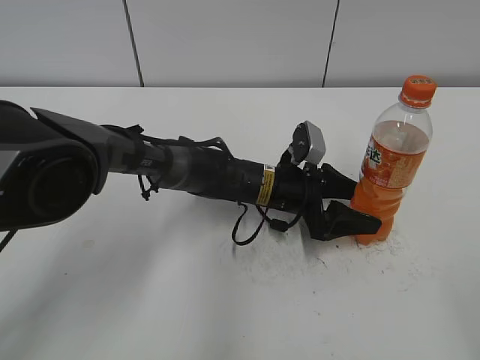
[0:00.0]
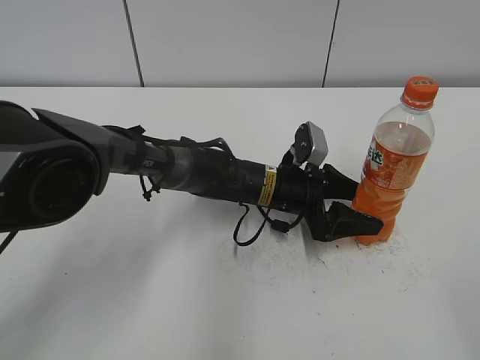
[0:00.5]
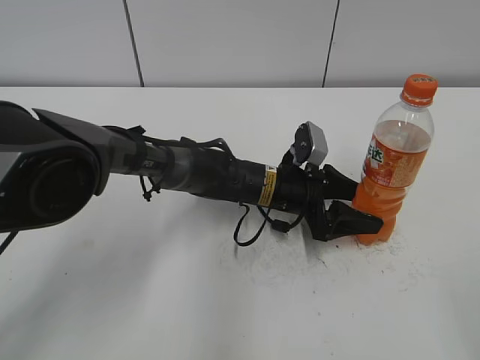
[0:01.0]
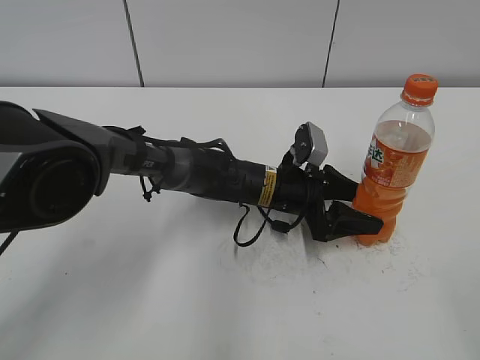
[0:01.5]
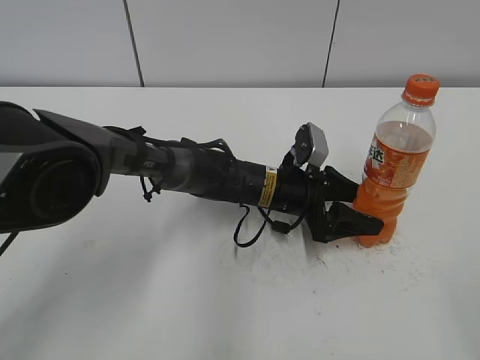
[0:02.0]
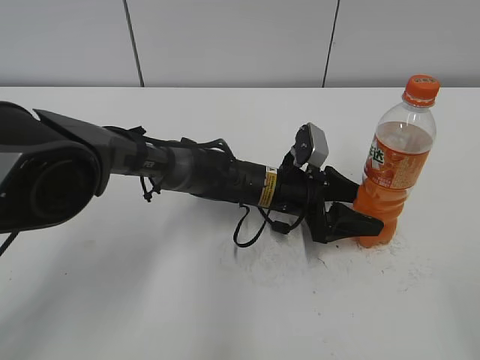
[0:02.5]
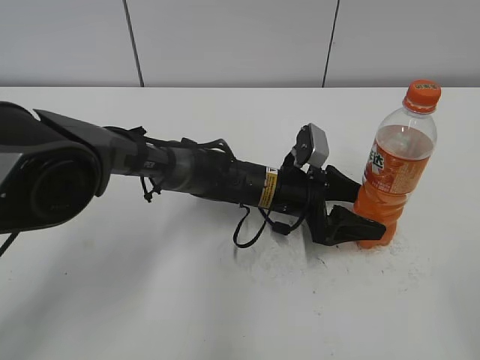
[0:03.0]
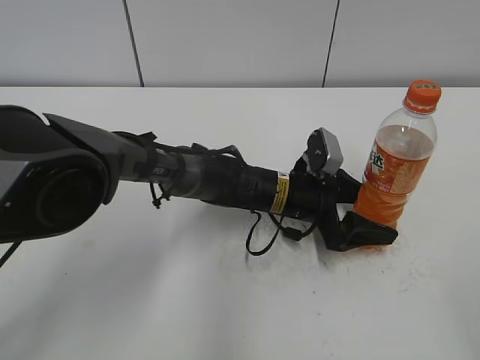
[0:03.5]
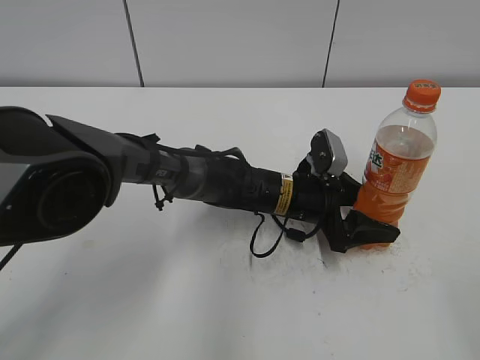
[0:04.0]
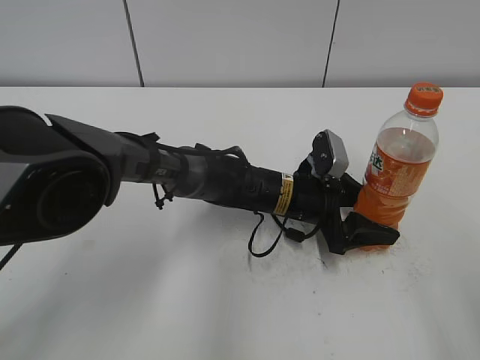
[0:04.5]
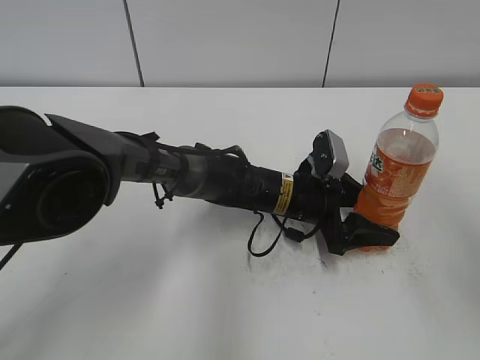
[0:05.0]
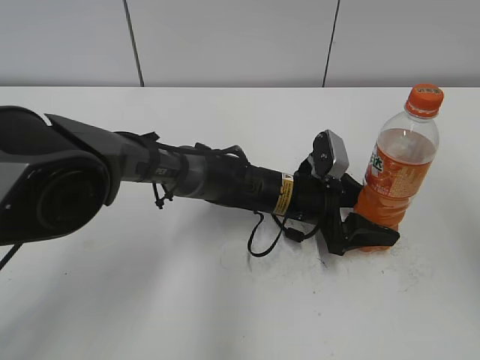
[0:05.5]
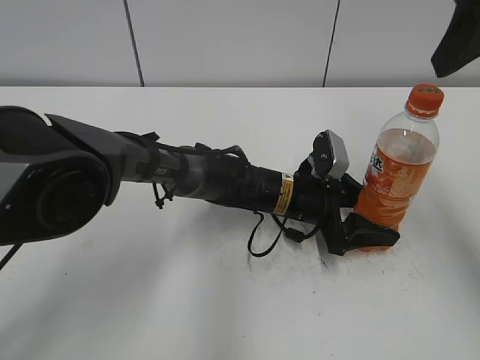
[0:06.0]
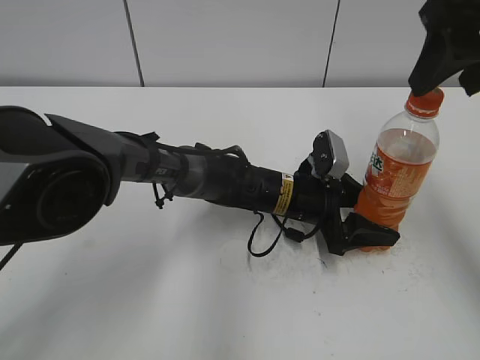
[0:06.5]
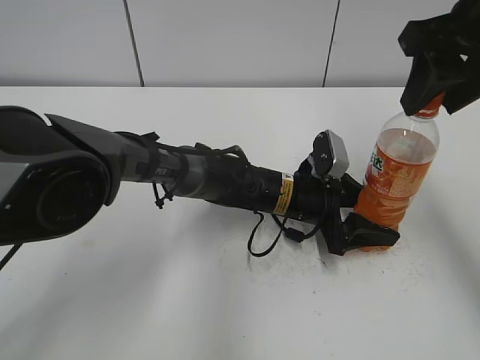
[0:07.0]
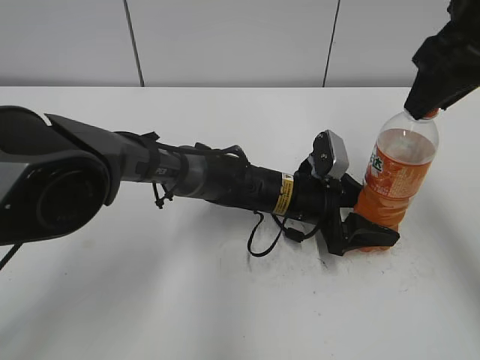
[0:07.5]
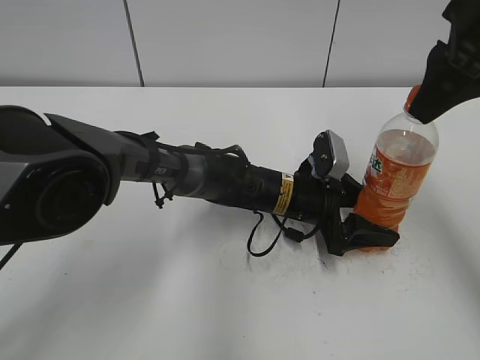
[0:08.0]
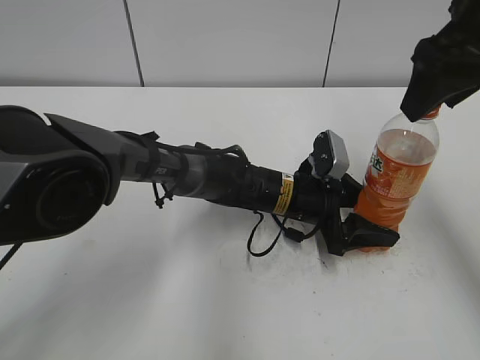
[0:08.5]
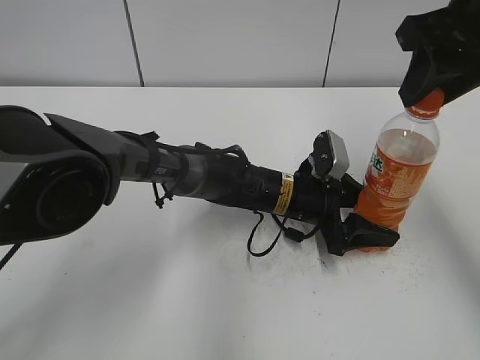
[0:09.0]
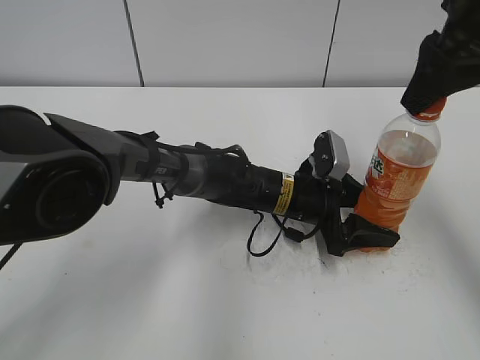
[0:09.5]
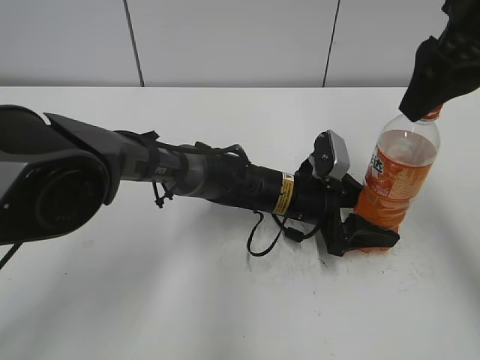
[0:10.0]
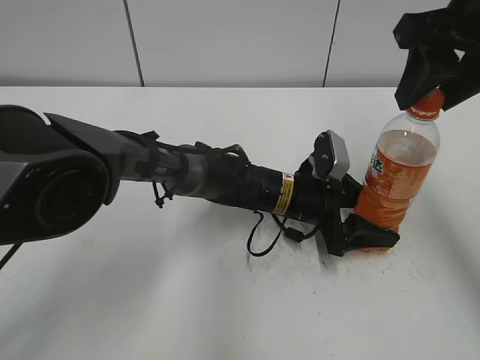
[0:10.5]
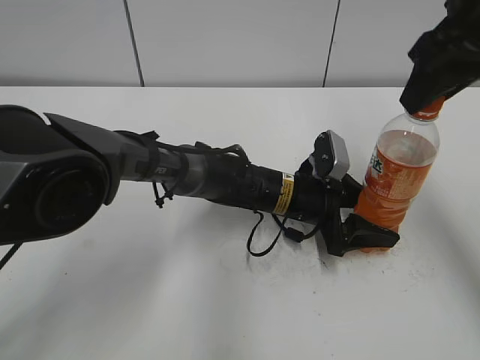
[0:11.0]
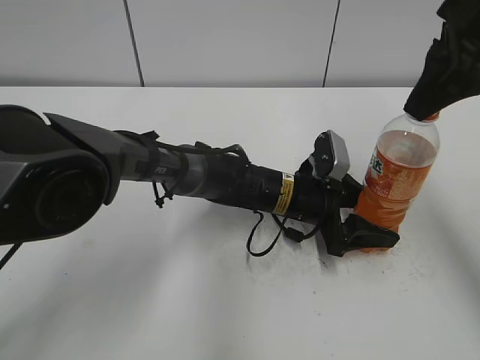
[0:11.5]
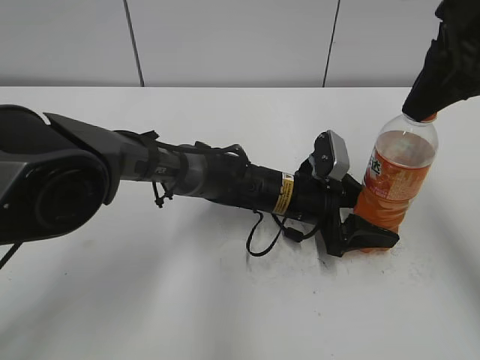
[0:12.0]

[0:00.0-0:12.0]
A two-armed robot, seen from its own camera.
0:00.0 to 0:02.0: Both grippers stay about where they are.
0:02.0 to 0:04.0: The left gripper opens, then closes once more.
0:04.0 to 0:06.0: The right gripper moves forward and upward, roughly 30 cm.
0:06.0 to 0:08.0: The right gripper ends up roughly 5 cm from where it was, and closes its fingers.
0:08.0 to 0:10.0: The right gripper opens its fingers.
0:10.0 to 0:12.0: The right gripper closes its fingers.

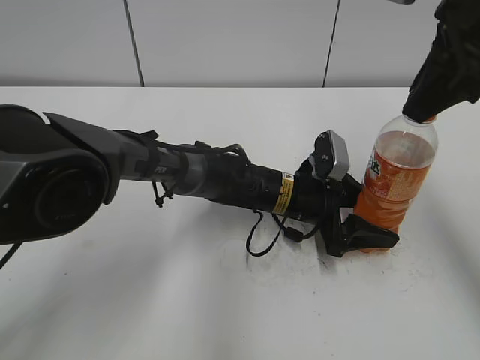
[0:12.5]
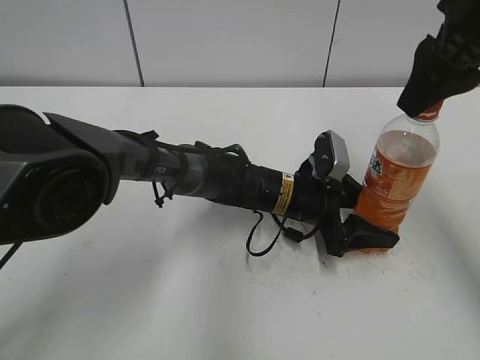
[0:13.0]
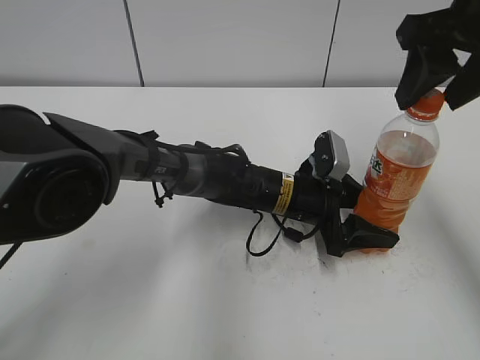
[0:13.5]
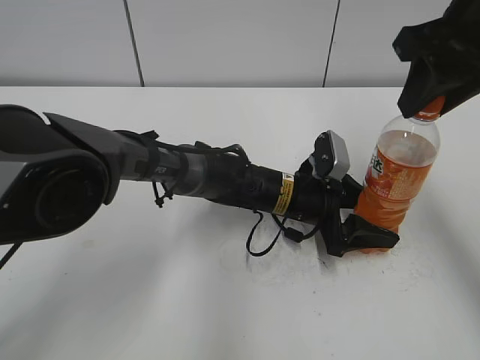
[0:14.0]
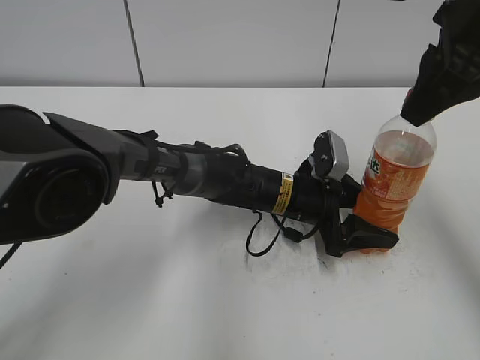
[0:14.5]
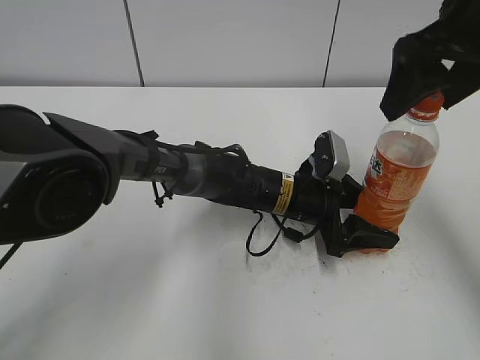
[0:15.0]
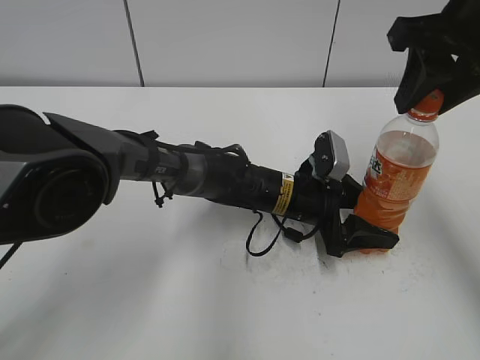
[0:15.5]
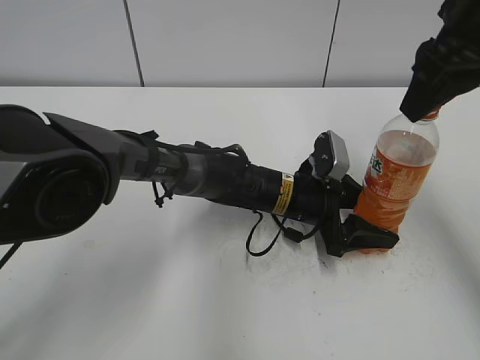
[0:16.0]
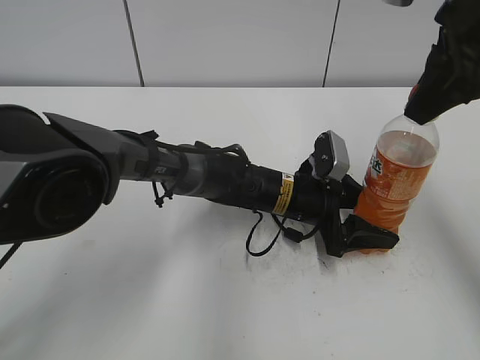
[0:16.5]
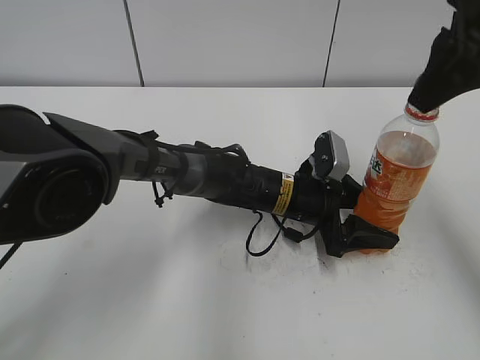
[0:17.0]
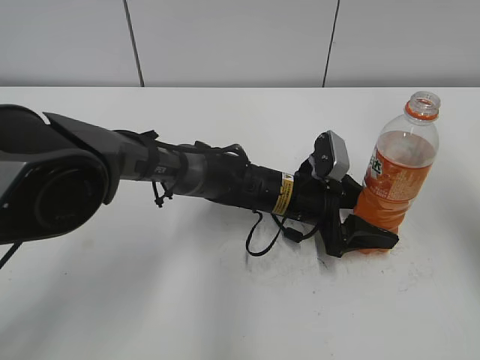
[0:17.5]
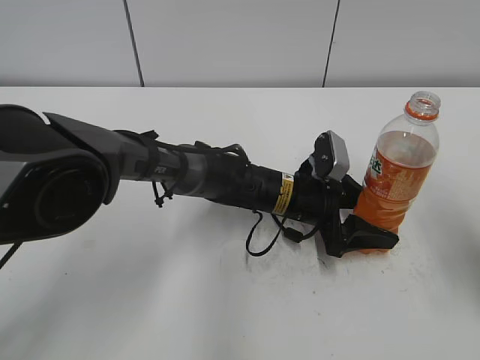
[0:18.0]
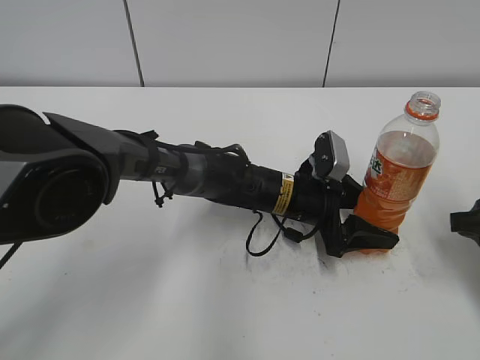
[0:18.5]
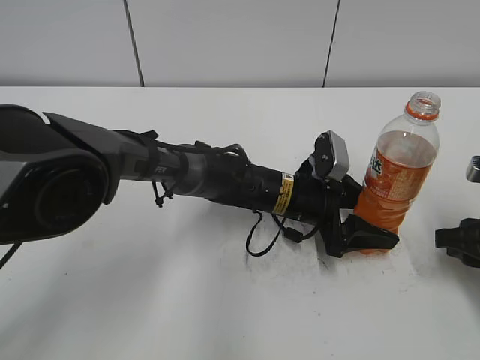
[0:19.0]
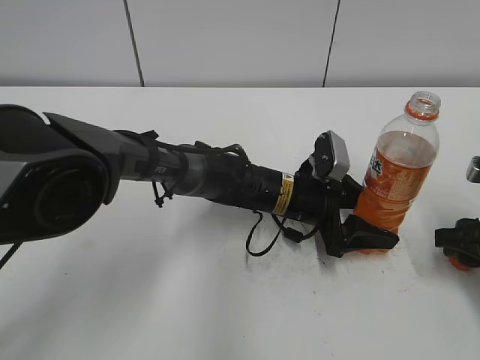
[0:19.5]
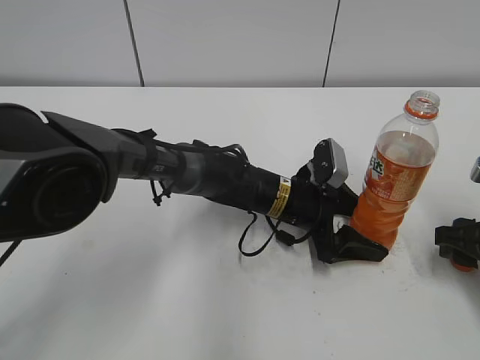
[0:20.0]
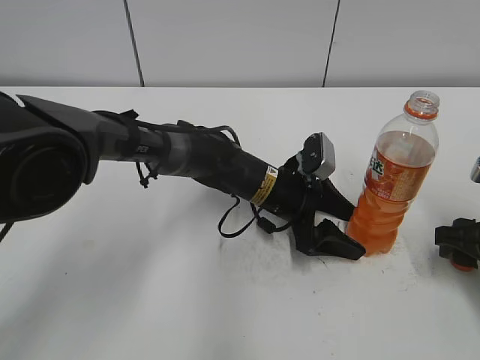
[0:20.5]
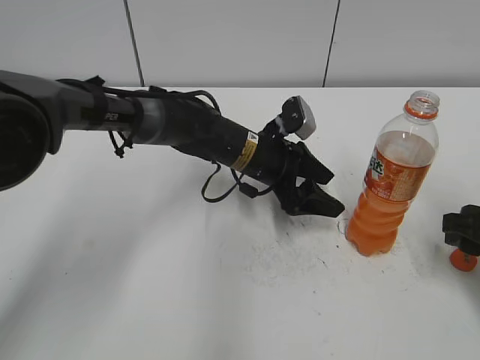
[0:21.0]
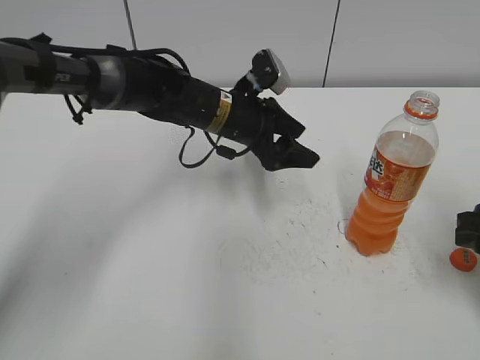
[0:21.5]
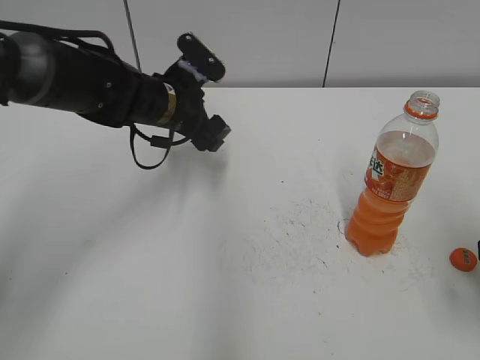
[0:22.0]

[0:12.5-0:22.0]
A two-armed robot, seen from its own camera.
Step, 0:17.0 to 0:19.0: Place the bottle cap on the table with the right hand.
Step, 0:19.5 to 0:20.0: Place the Mirinda with the left hand.
0:12.5 to 0:14.5: The right gripper opens, then closes once more.
0:14.5 to 0:16.5: The right gripper opens, then closes once more.
0:16.5 to 0:18.0: The right gripper shifts approximately 15 cm backward, downward and to the right.
0:18.0 to 0:20.0: The left gripper opens. The right gripper heads downward, covering about 15 cm, and opens.
0:20.0 to 0:22.0: The right gripper shifts approximately 10 cm upward. Meanwhile the left gripper travels to the left, upward and forward by some 20 cm.

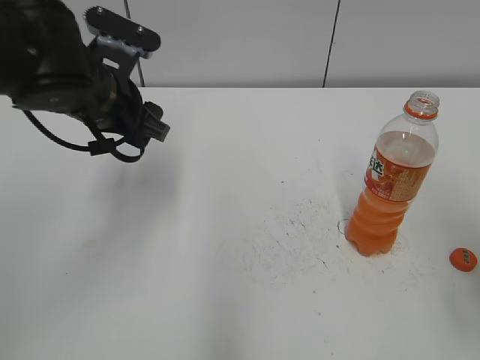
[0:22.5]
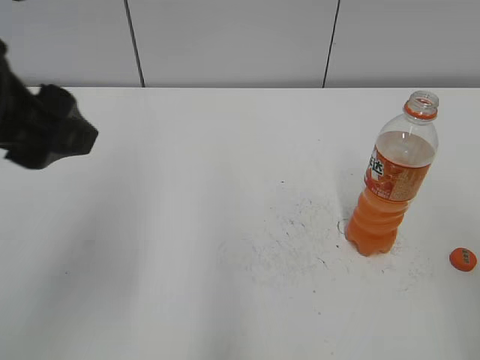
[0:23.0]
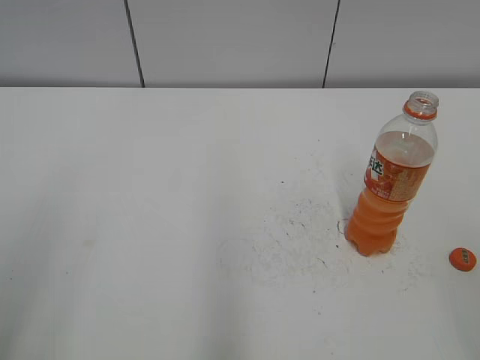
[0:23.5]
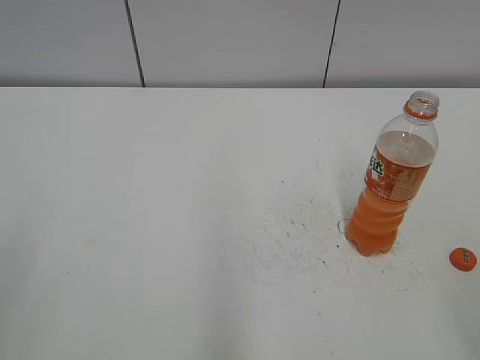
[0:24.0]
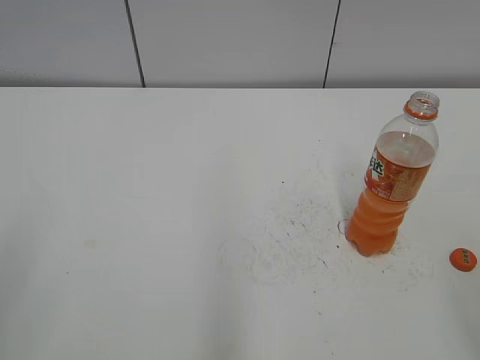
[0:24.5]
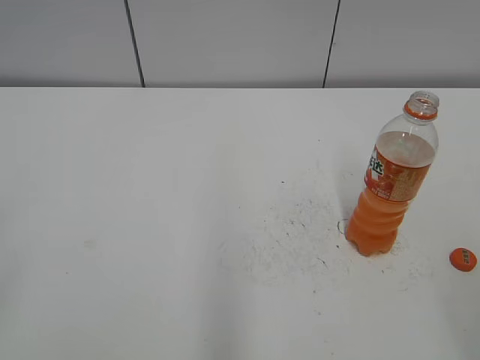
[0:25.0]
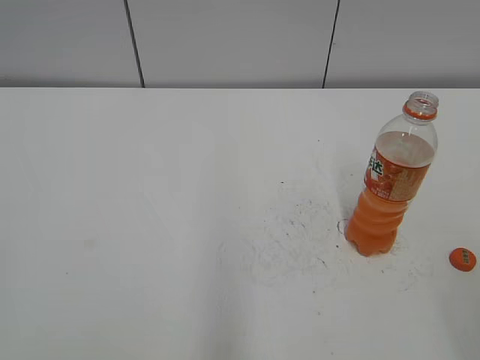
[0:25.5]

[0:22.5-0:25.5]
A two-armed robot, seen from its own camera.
0:22.5 to 0:24.0: The left gripper travels backward and to the left by some 35 cm.

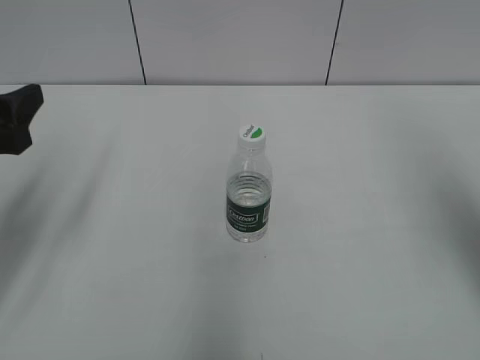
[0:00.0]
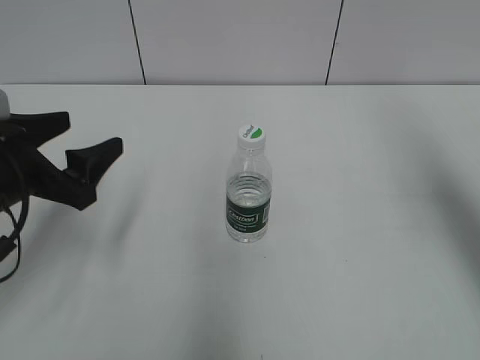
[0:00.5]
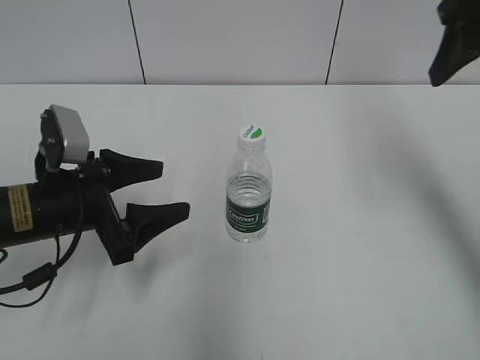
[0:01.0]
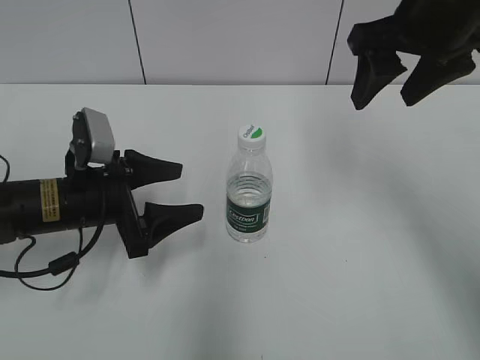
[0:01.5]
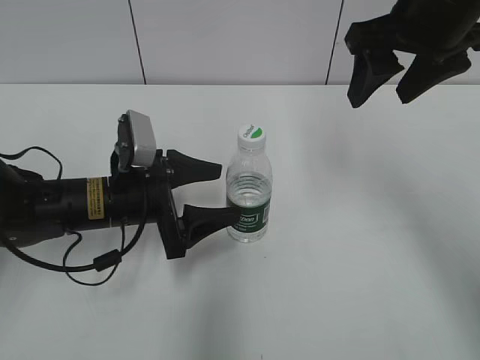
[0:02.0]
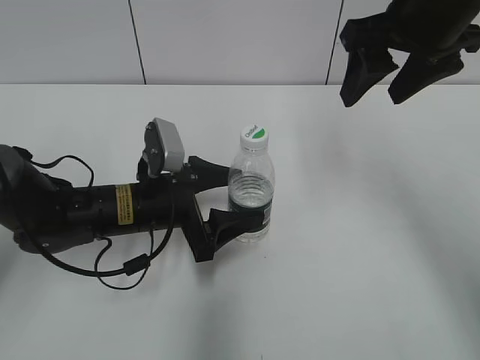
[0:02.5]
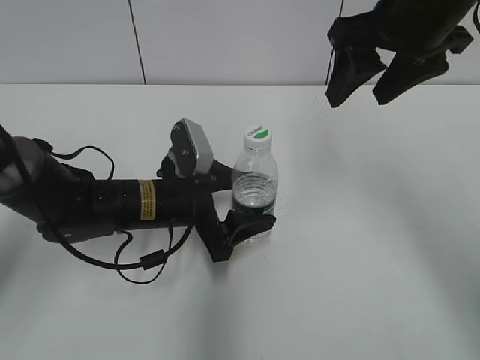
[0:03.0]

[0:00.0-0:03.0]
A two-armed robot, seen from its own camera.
0:00.0 to 0:01.5: The right gripper goes approximately 20 cm forward and to the left. Meanwhile the left gripper goes some 15 cm downward, to the right and forward.
0:01.5 to 0:03.0: The left gripper heads to the right, covering approximately 10 cm.
